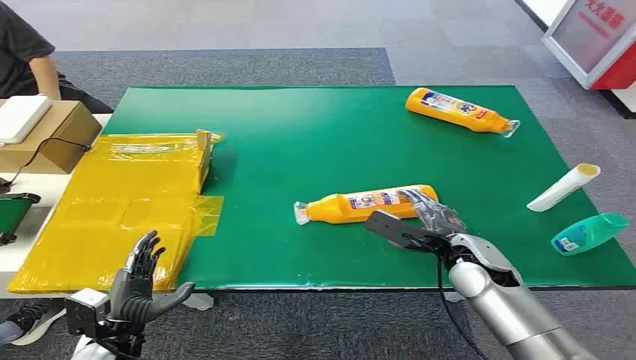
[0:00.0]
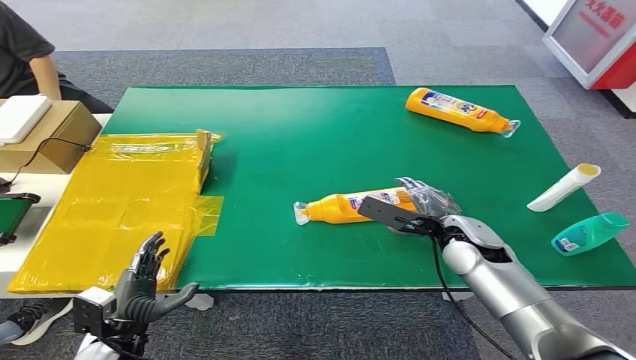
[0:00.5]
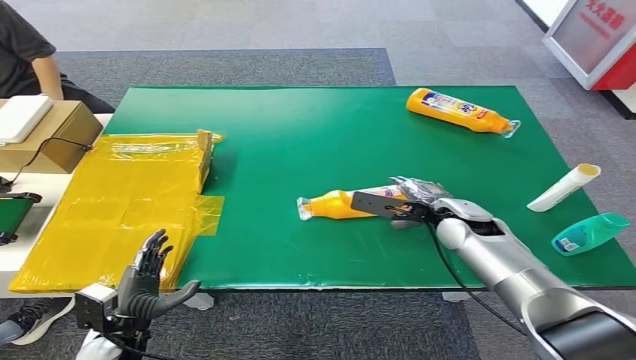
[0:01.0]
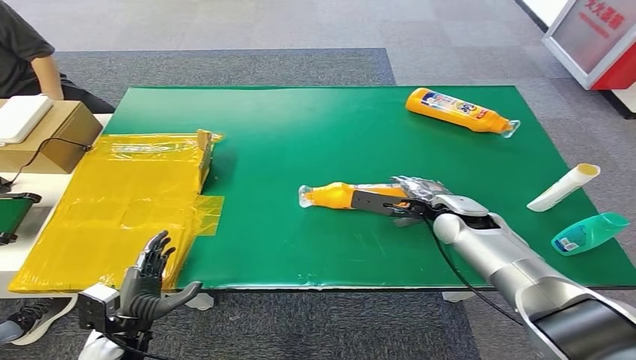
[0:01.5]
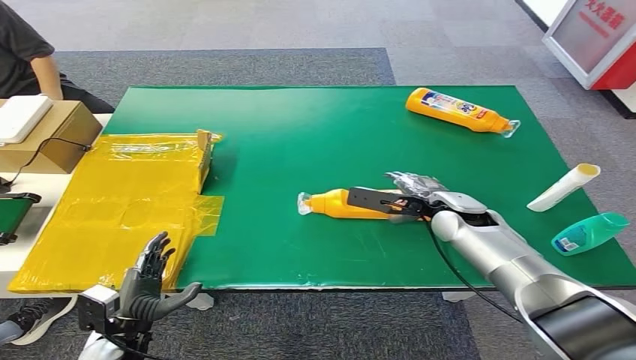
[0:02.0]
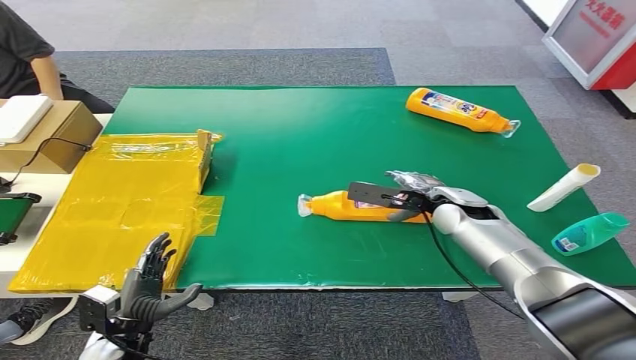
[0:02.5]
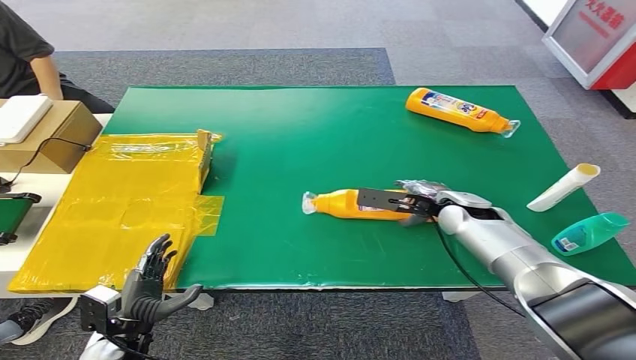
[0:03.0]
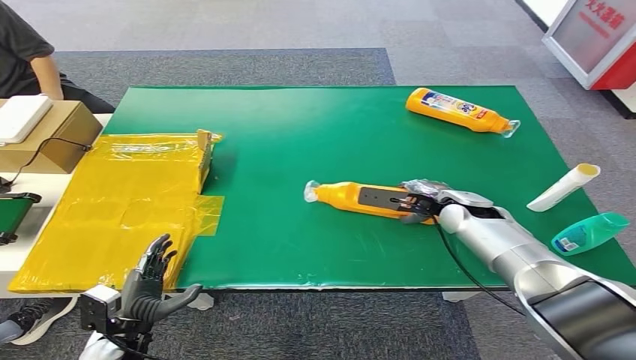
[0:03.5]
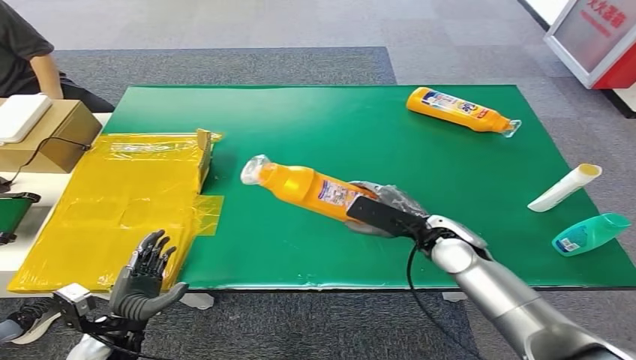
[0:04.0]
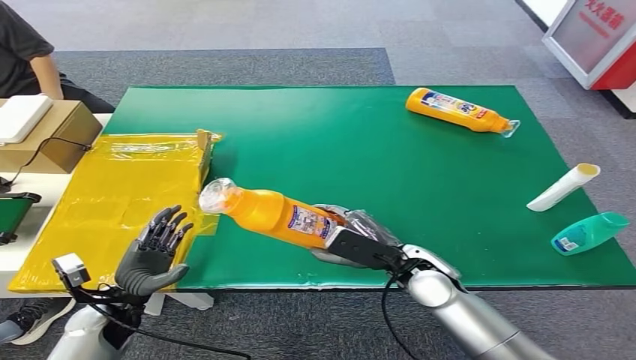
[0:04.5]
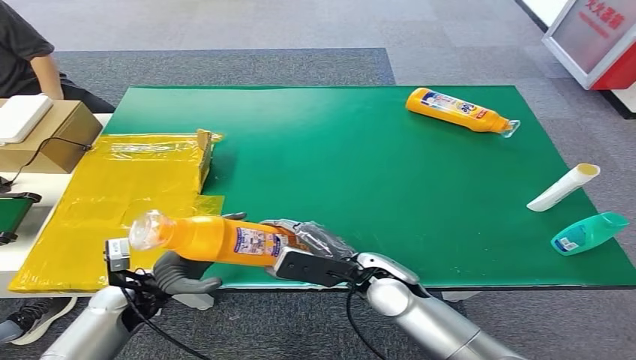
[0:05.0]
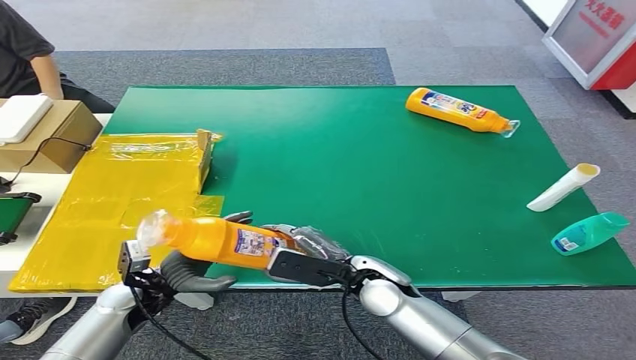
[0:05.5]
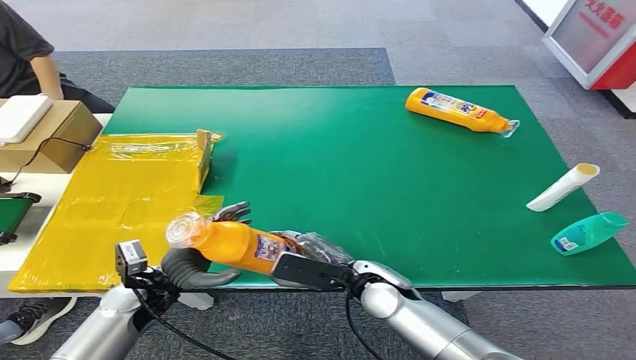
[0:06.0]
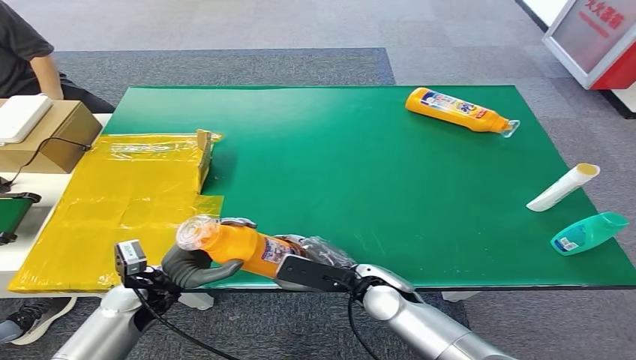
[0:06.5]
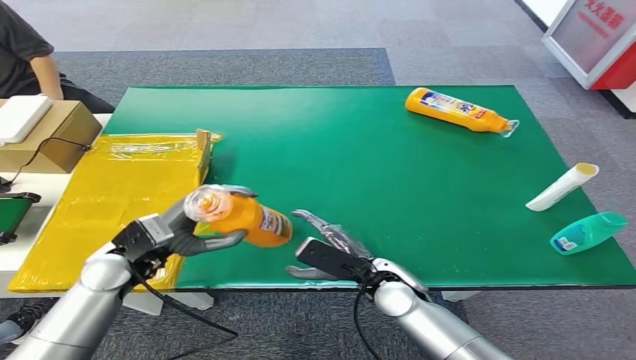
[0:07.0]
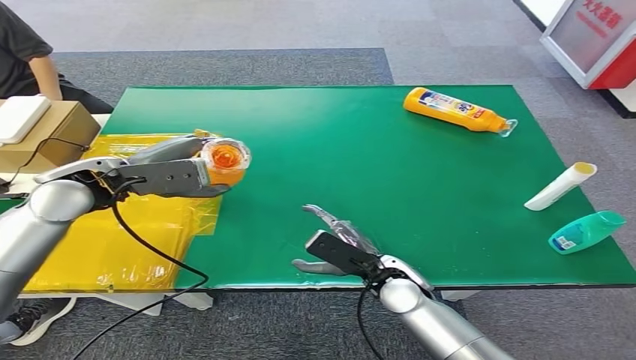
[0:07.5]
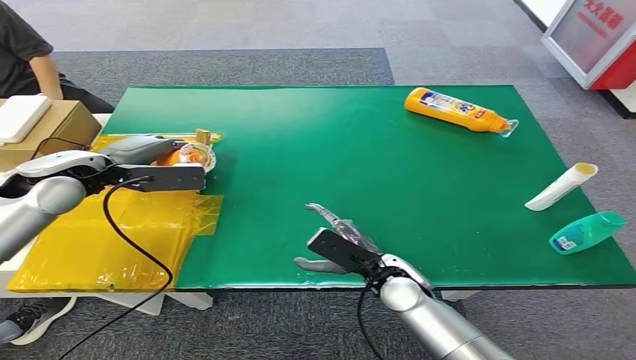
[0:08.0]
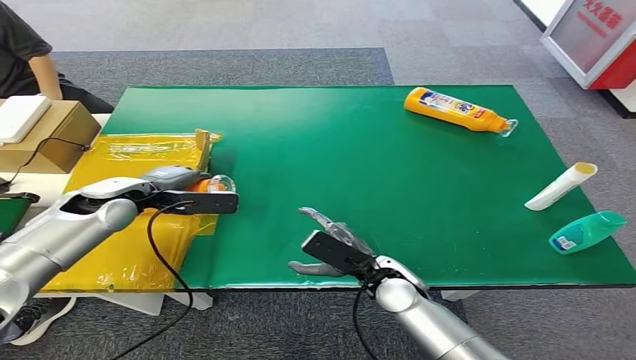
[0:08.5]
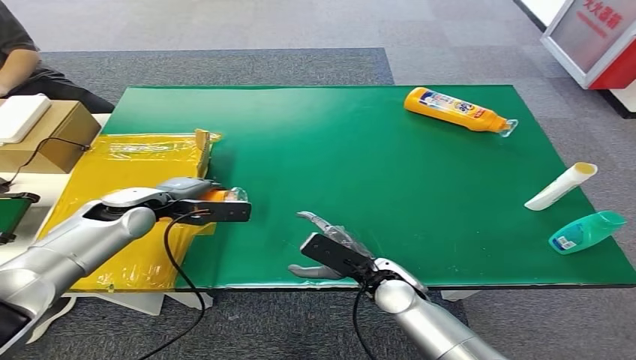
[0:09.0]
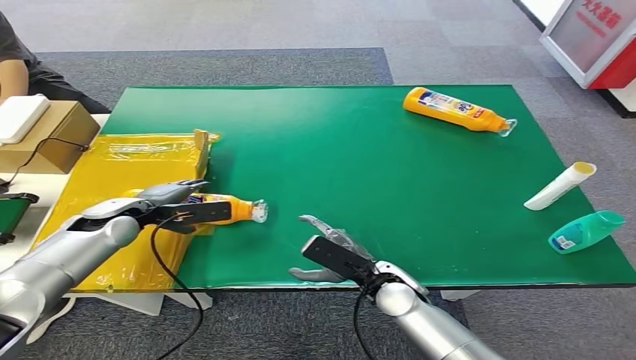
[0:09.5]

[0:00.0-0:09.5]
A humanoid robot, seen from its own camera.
Step, 0:00.0 to 0:04.0: Pick up the bottle from the table.
Step, 0:05.0 to 0:09.5: Turn the bottle to the front side.
0:02.0 to 0:04.0: The right hand is displaced backward by roughly 5 cm.
0:04.0 to 0:05.5: The left hand moves forward and upward, approximately 10 cm. The right hand heads to the left and backward, covering roughly 15 cm.
0:05.5 to 0:07.5: The left hand travels upward and forward by some 25 cm.
0:07.5 to 0:09.5: The left hand travels downward by approximately 15 cm.

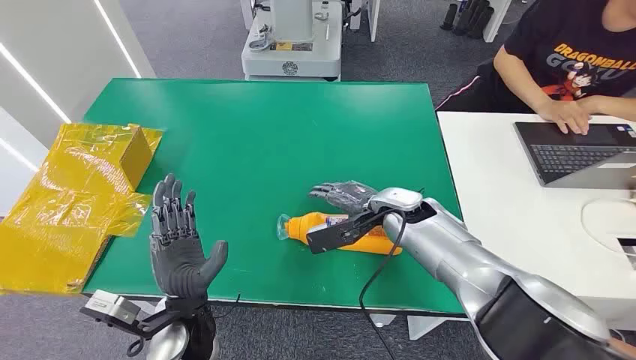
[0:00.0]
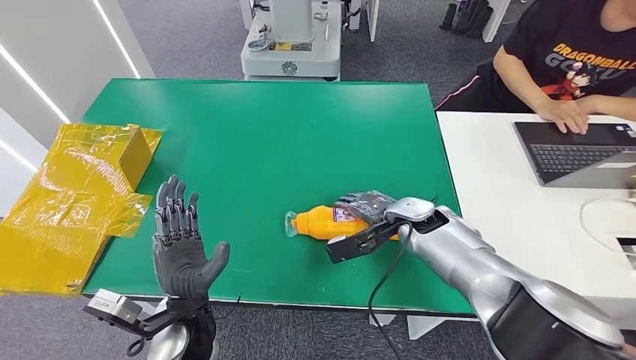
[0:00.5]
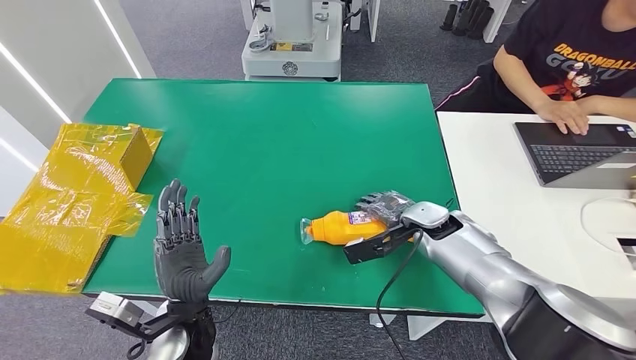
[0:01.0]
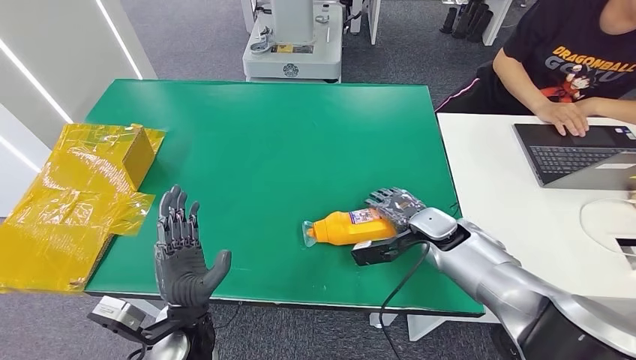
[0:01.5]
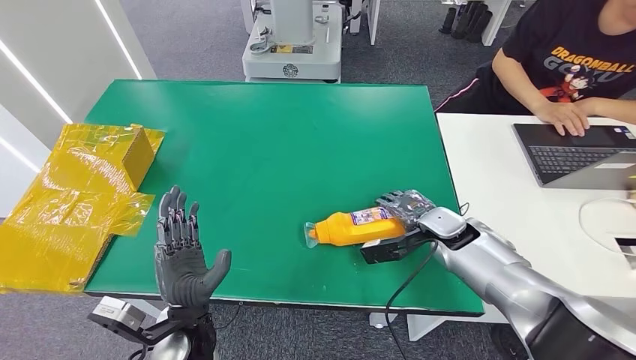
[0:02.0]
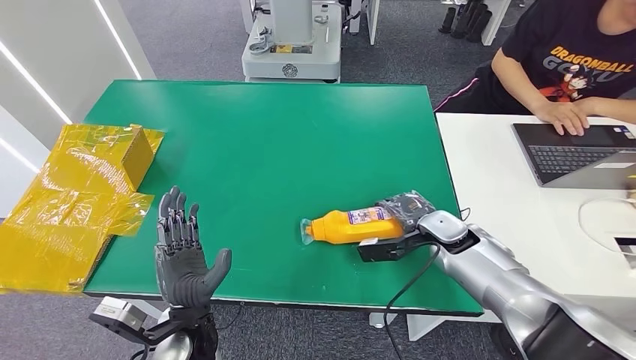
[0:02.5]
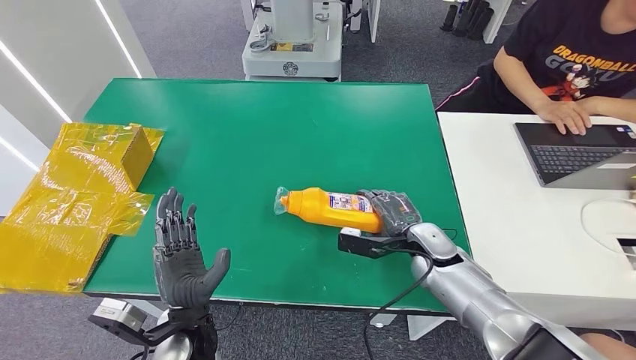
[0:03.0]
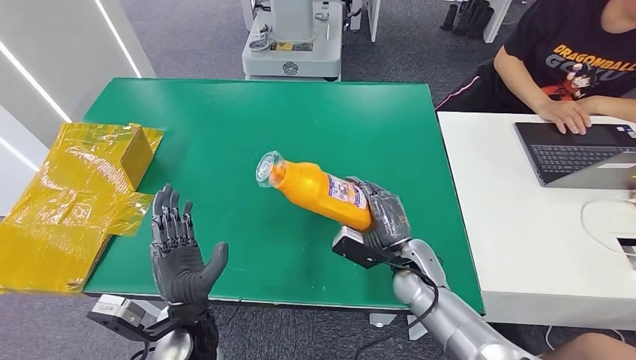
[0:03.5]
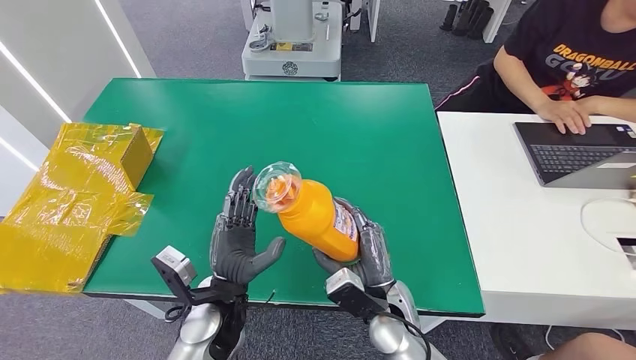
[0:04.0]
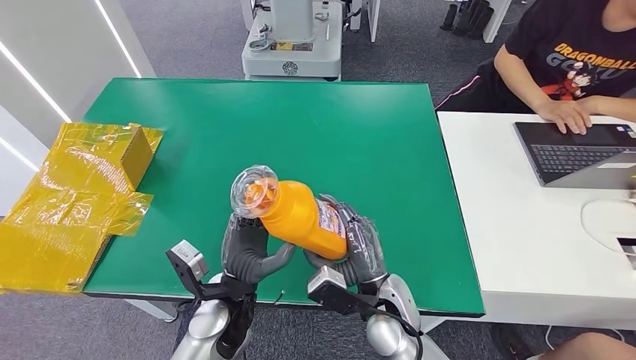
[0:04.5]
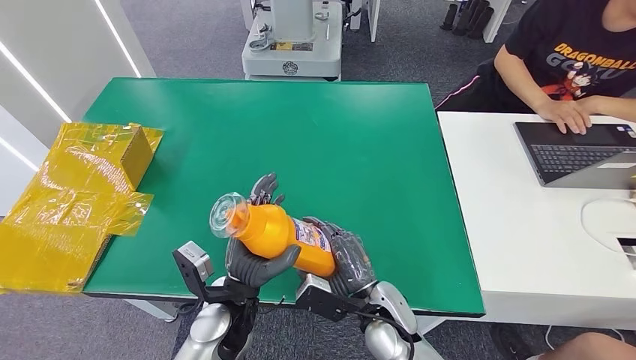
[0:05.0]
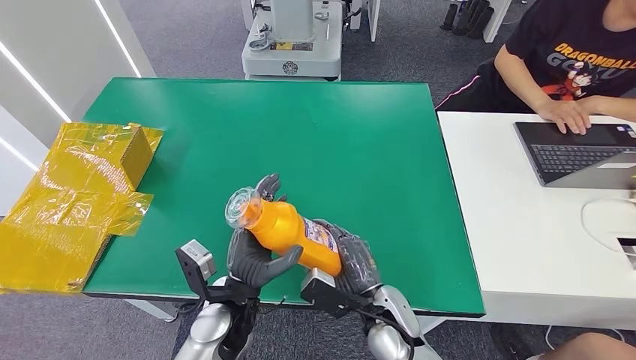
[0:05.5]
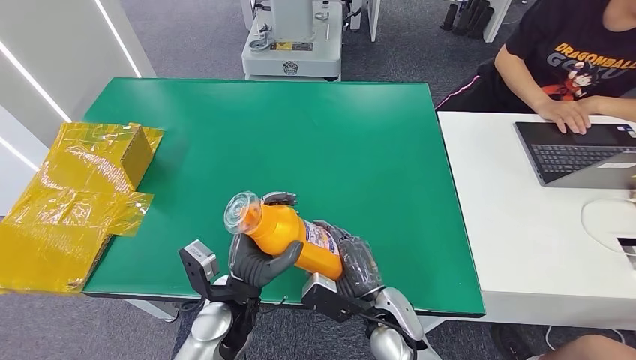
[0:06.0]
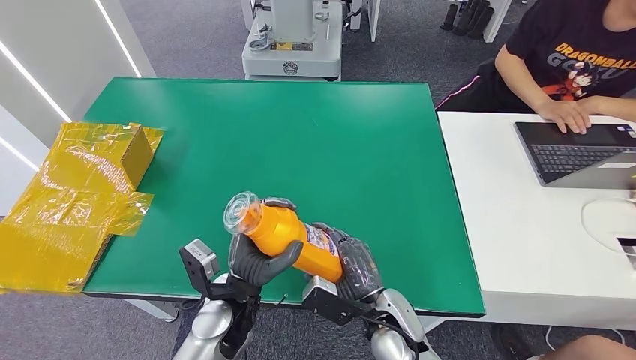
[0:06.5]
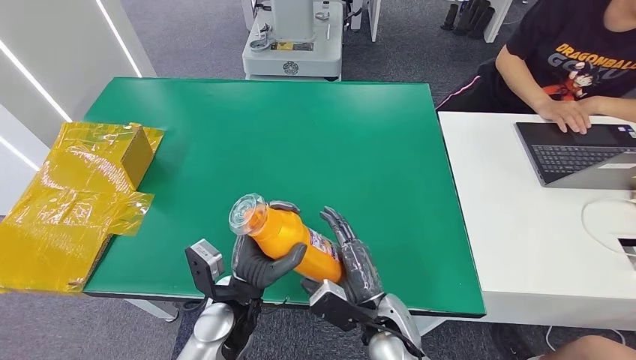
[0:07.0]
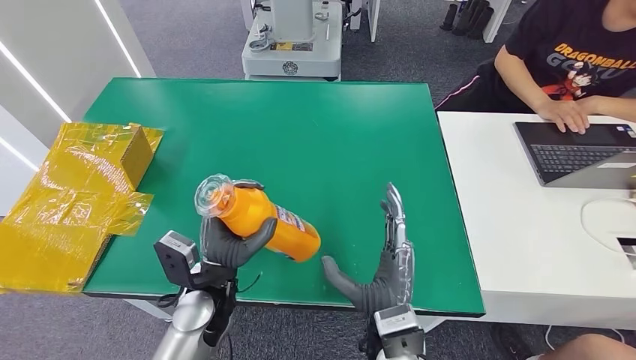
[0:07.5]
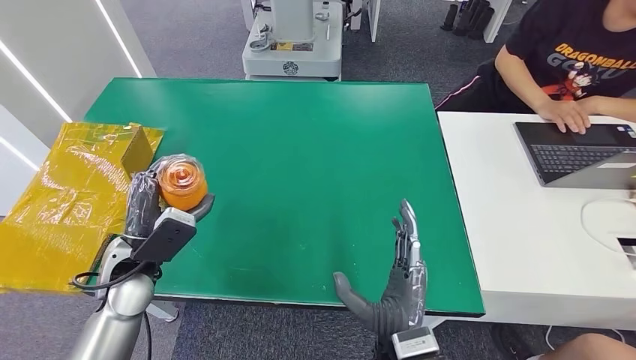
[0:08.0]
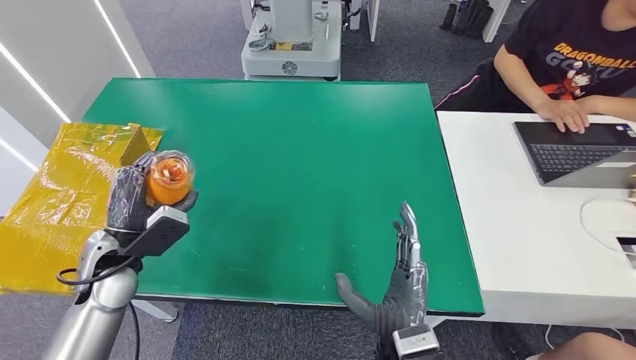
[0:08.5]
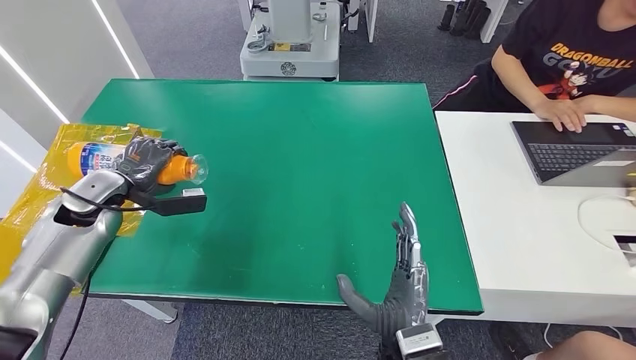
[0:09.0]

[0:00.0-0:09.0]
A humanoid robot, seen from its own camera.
Step, 0:00.0 to 0:05.0: Pick up the bottle from the table.
0:04.5 to 0:07.0: The hands make only small movements.

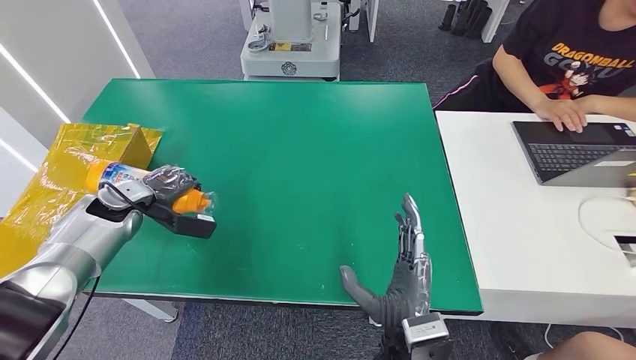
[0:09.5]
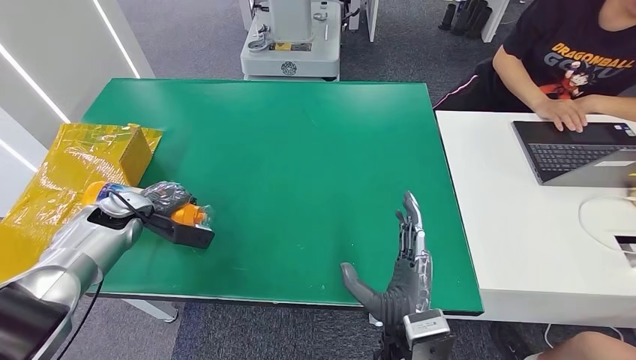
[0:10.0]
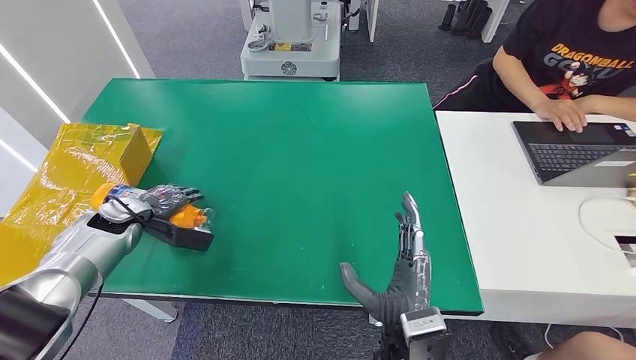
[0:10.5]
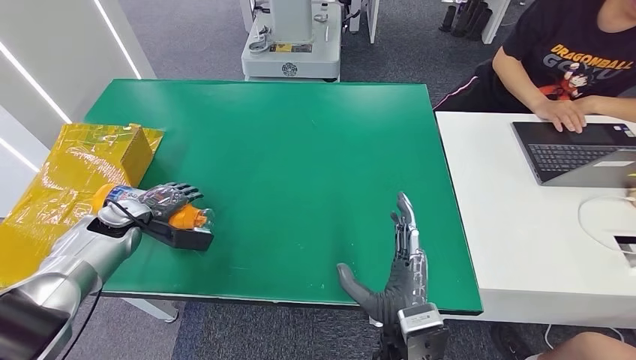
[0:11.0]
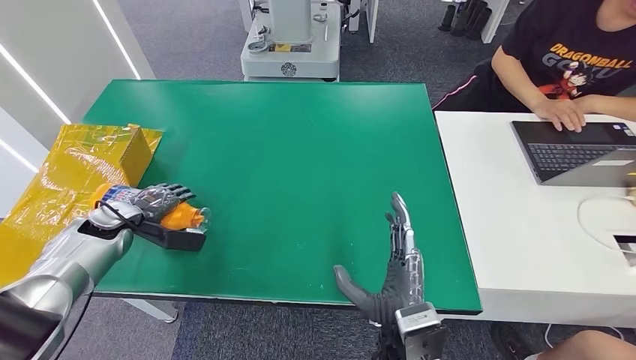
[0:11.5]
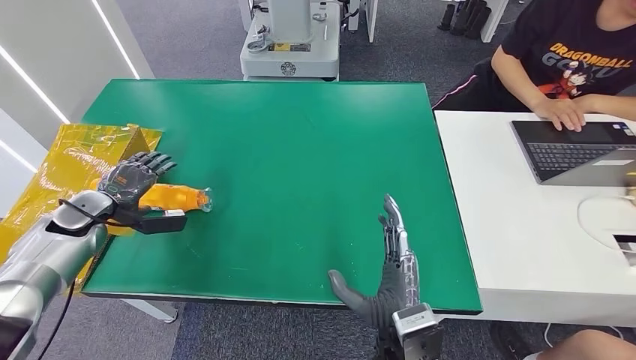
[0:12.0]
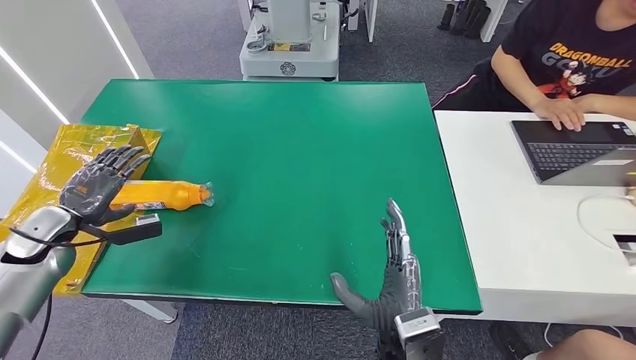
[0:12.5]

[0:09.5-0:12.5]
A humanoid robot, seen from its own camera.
Step, 0:09.5 to 0:12.0: Turn the bottle to the front side.
0:09.5 to 0:11.0: The hands move only a little.
0:11.0 to 0:12.5: The left hand travels to the left and backward by some 10 cm.
